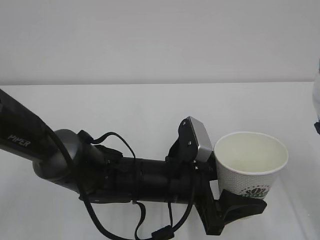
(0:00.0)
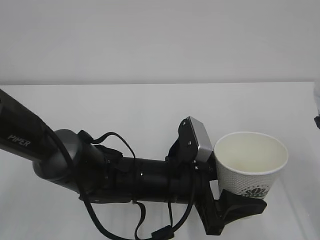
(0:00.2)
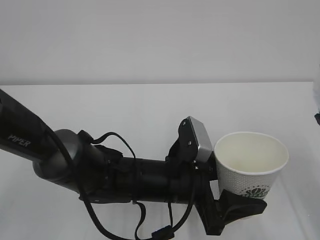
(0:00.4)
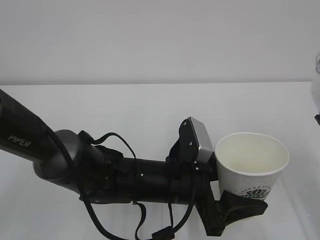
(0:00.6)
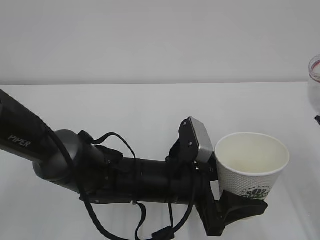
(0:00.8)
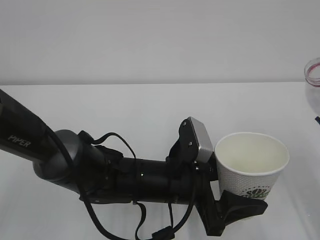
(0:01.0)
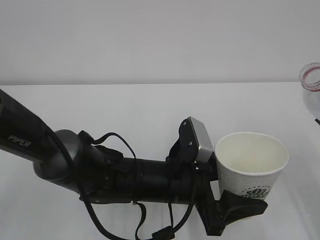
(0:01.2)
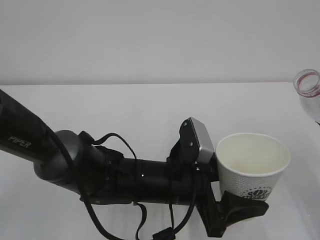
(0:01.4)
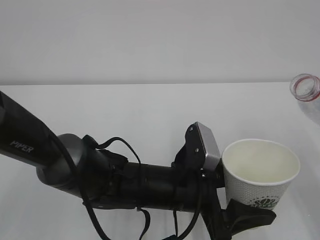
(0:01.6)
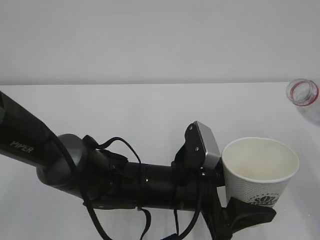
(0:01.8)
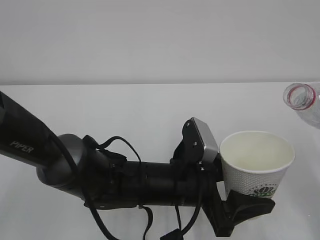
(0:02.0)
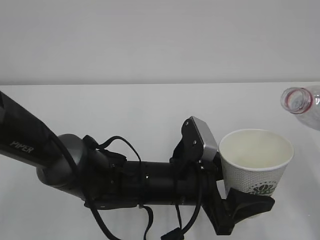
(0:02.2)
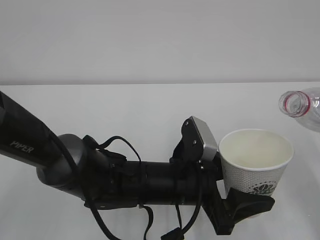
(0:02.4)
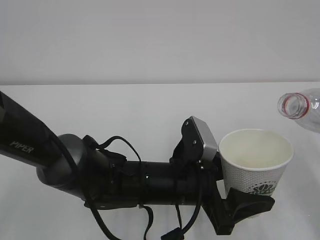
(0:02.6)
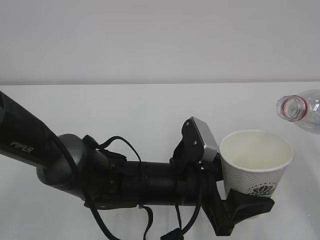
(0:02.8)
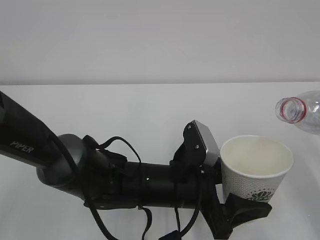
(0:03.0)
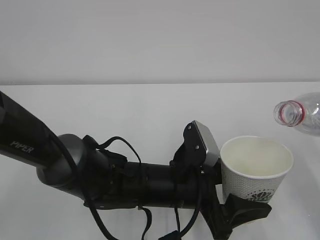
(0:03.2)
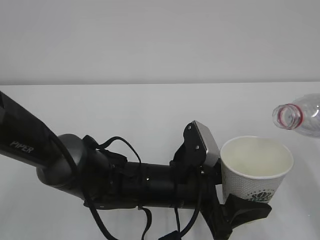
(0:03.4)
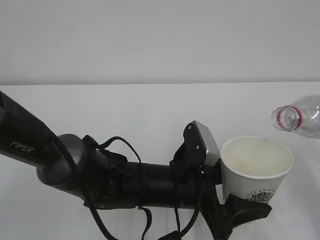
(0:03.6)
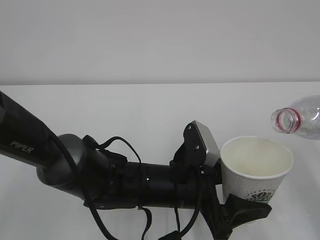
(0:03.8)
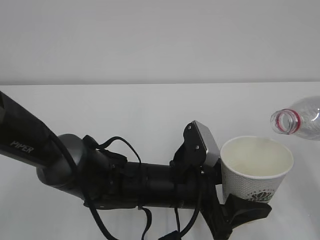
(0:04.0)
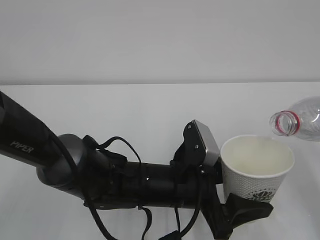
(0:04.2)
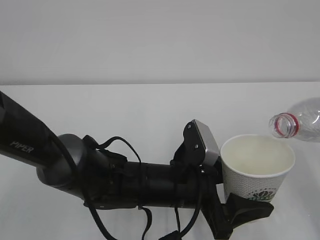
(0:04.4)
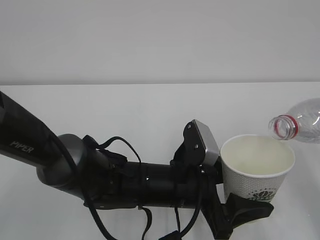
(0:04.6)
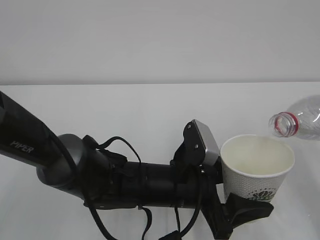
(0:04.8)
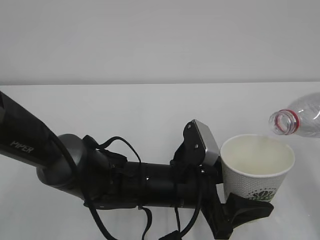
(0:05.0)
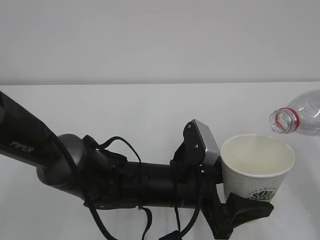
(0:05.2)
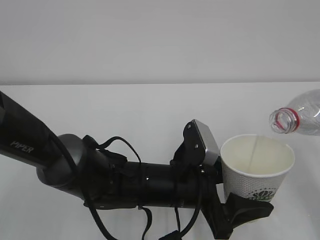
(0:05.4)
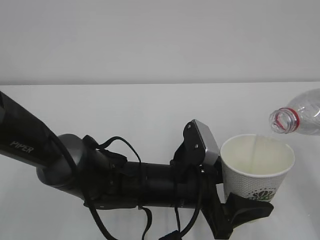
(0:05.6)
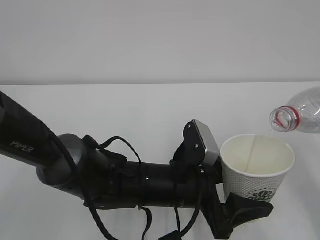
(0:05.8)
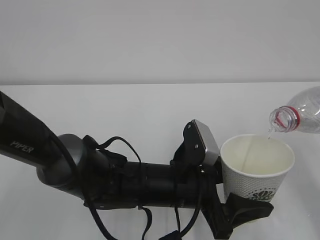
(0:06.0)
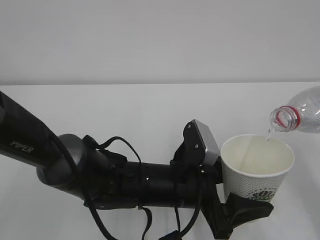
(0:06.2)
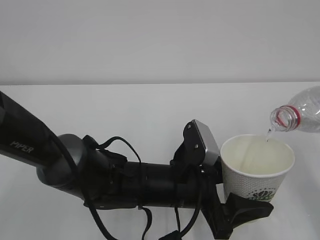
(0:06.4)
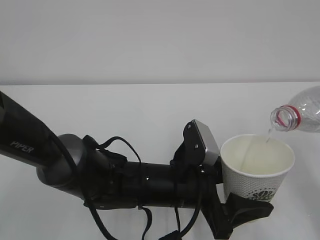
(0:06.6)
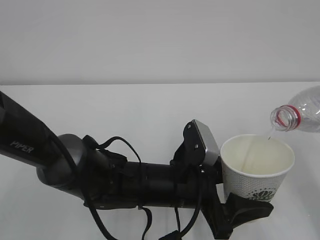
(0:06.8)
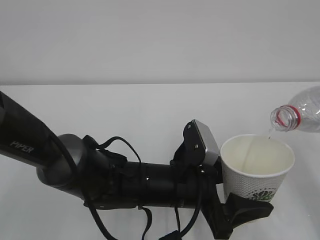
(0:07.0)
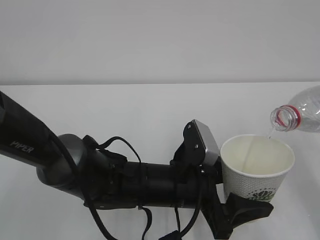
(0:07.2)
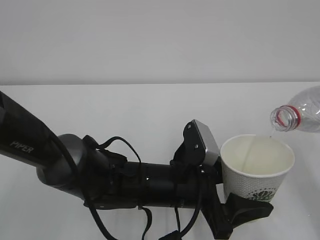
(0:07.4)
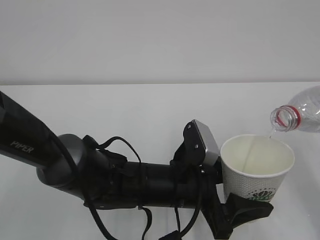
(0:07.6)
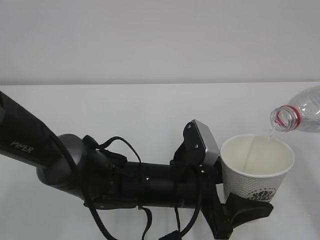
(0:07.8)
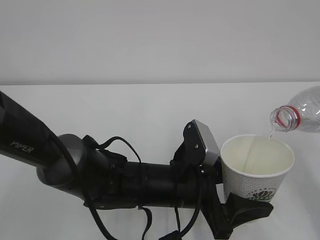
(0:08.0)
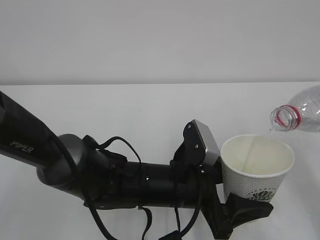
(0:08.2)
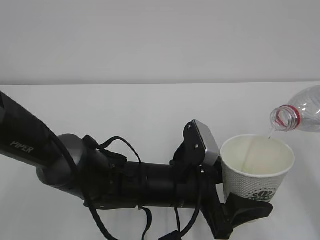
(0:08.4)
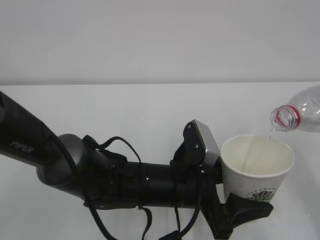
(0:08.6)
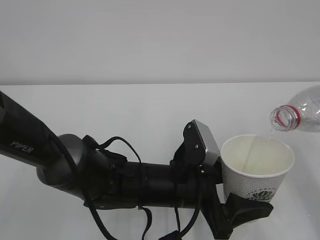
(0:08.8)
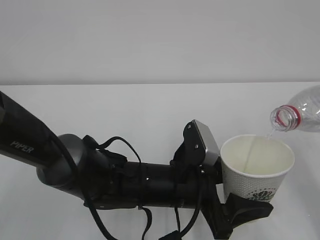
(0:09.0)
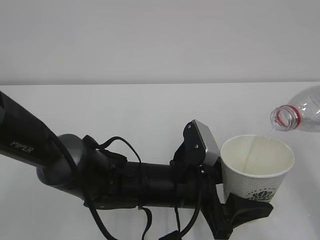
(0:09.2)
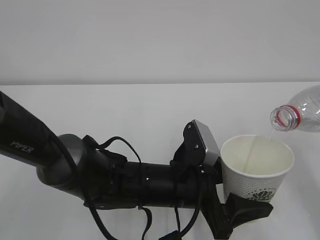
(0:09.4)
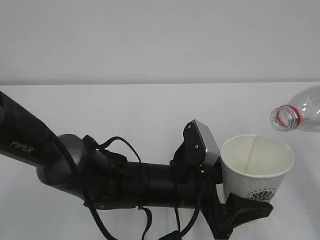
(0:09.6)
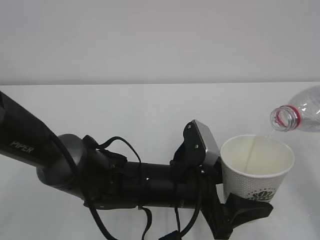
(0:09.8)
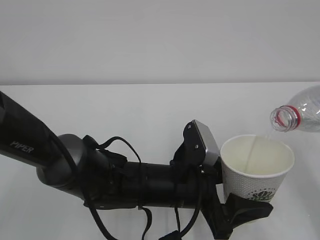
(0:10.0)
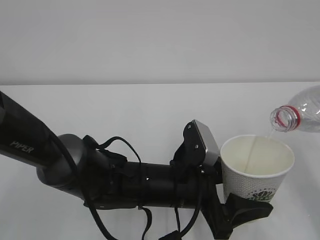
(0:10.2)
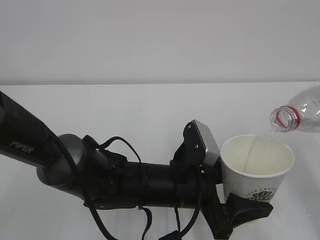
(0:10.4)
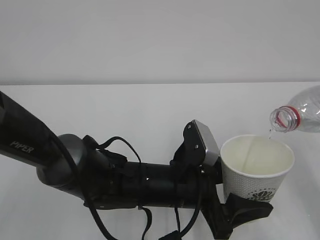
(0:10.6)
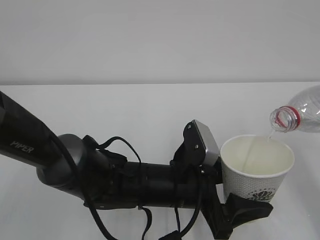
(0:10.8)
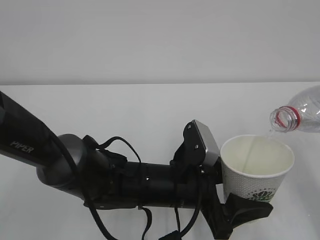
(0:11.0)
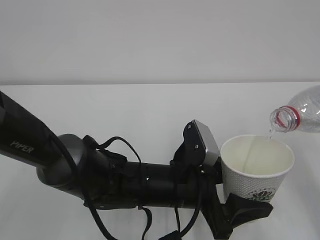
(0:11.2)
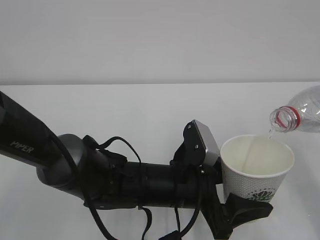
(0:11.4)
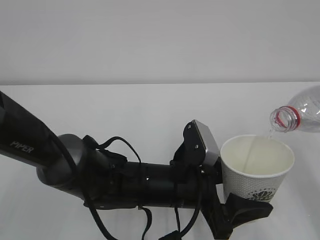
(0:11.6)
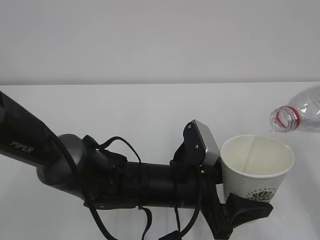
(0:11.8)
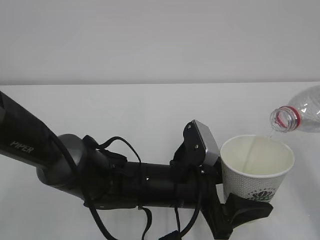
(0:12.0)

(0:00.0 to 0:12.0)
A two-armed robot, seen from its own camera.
0:01.6 - 0:03.0: There are only small adjustments of the grippers.
0:03.0 - 0:06.0: The grippers move only a little.
0:06.0 - 0:12.0: The two grippers keep their place.

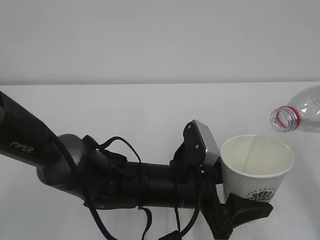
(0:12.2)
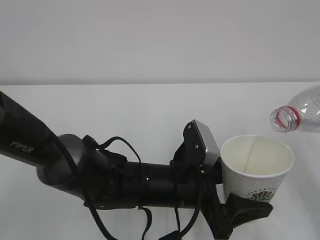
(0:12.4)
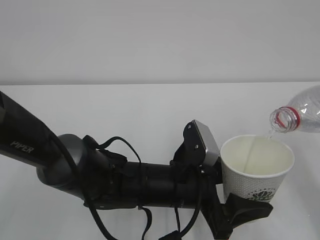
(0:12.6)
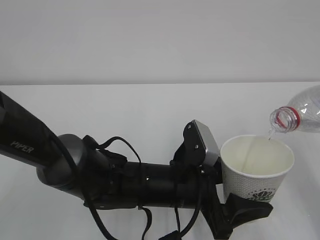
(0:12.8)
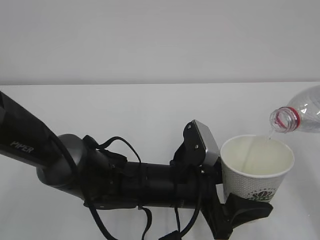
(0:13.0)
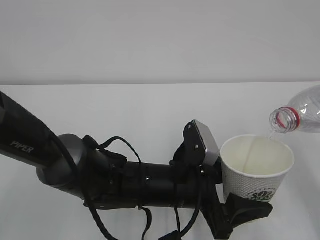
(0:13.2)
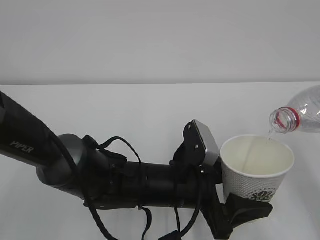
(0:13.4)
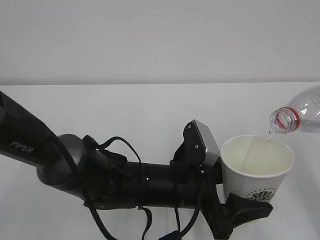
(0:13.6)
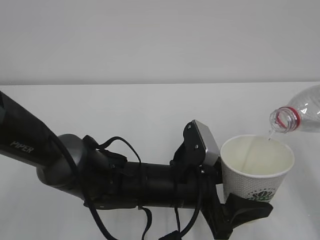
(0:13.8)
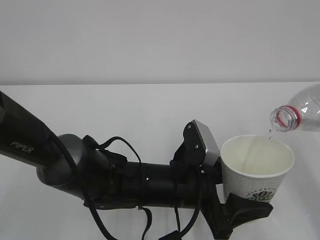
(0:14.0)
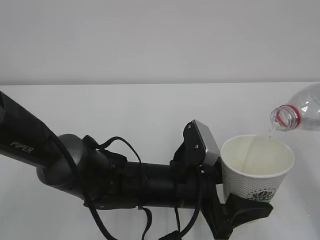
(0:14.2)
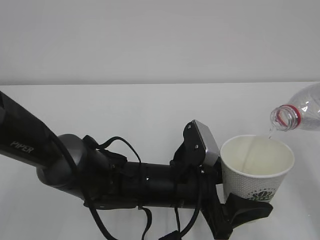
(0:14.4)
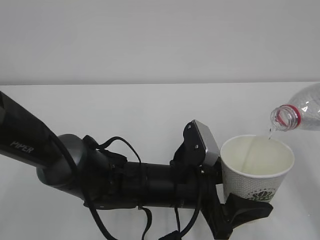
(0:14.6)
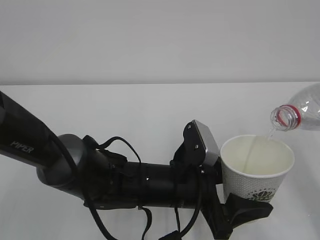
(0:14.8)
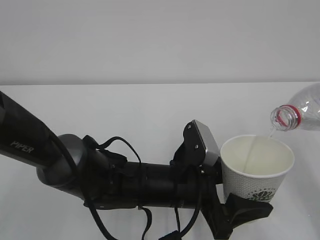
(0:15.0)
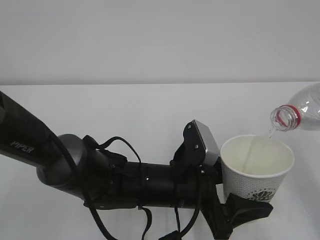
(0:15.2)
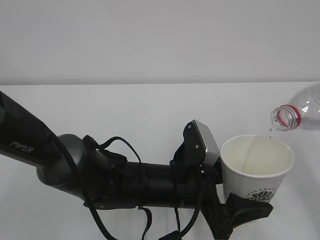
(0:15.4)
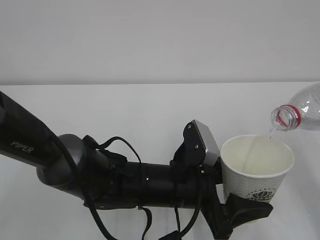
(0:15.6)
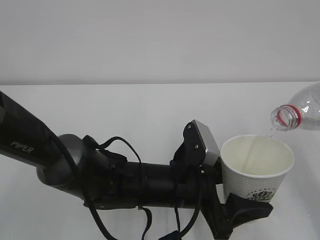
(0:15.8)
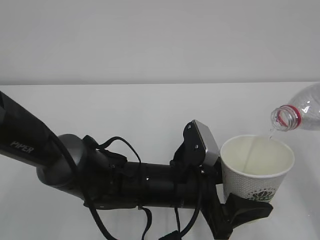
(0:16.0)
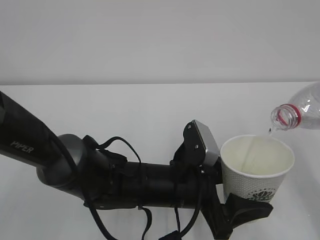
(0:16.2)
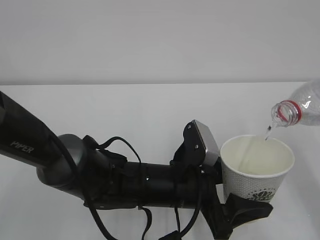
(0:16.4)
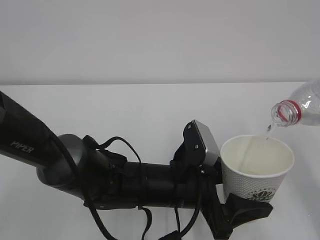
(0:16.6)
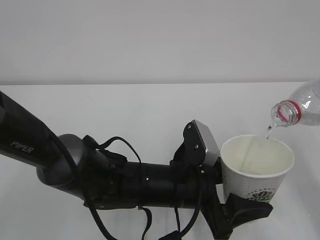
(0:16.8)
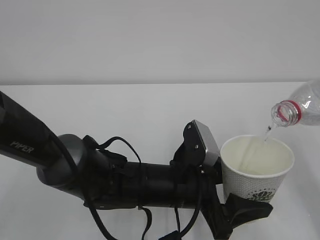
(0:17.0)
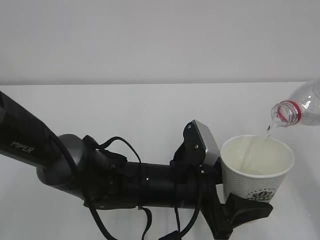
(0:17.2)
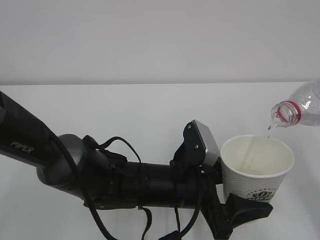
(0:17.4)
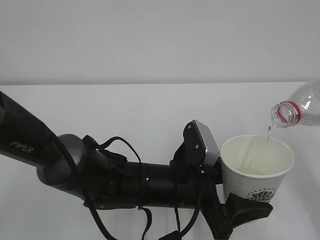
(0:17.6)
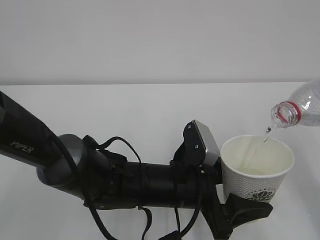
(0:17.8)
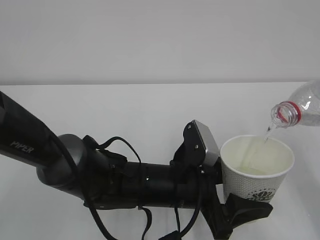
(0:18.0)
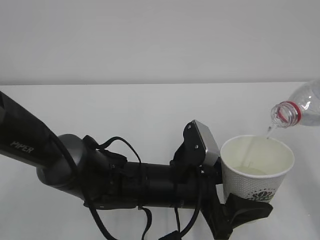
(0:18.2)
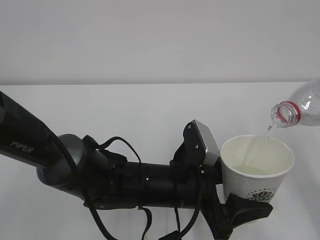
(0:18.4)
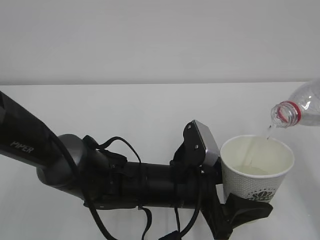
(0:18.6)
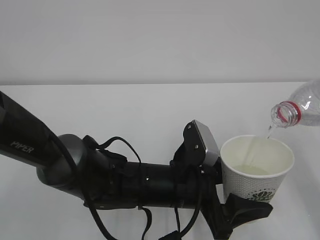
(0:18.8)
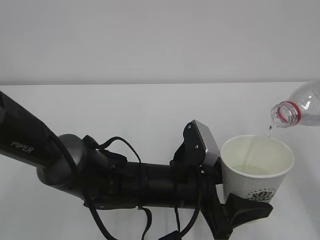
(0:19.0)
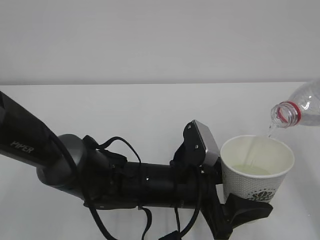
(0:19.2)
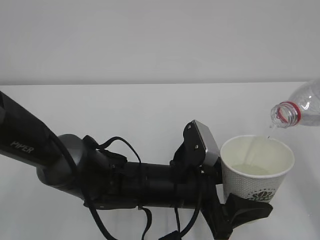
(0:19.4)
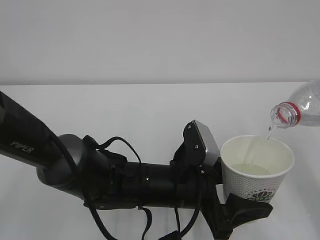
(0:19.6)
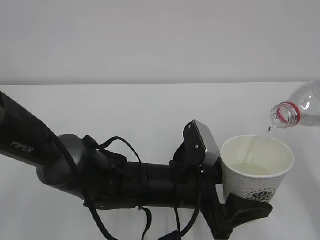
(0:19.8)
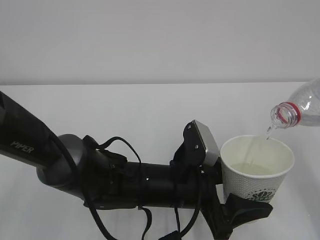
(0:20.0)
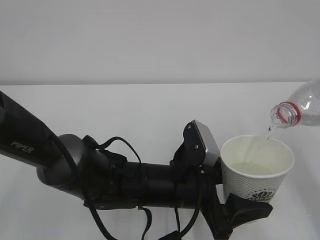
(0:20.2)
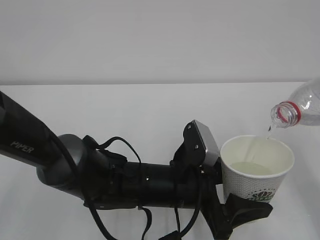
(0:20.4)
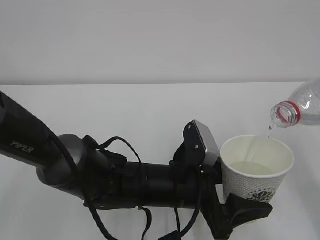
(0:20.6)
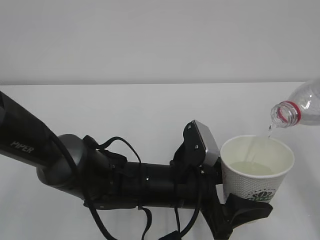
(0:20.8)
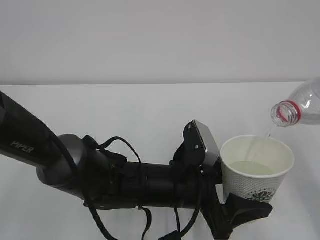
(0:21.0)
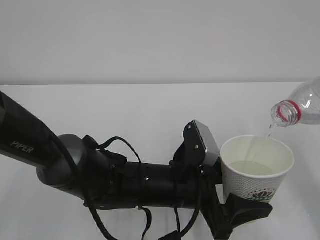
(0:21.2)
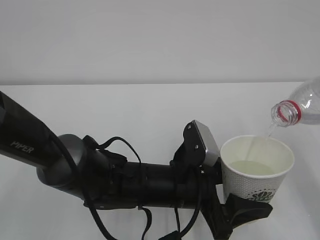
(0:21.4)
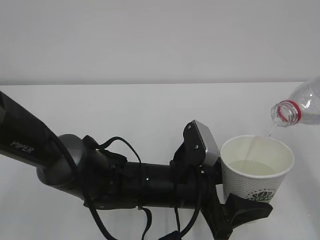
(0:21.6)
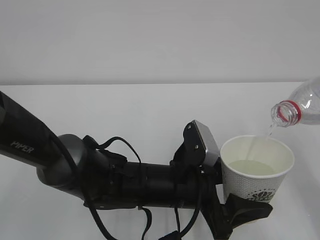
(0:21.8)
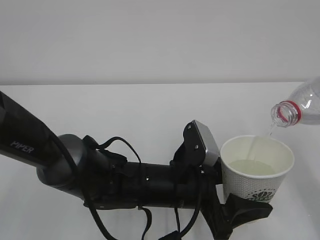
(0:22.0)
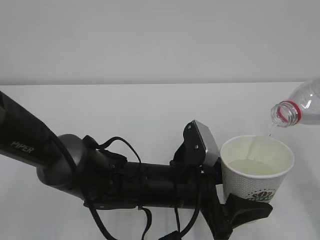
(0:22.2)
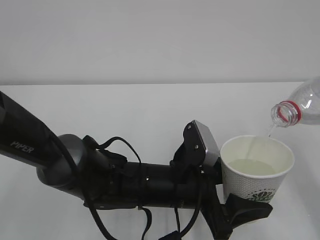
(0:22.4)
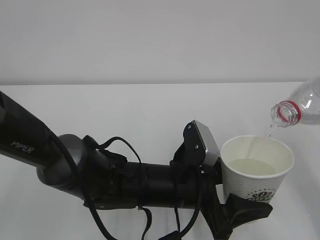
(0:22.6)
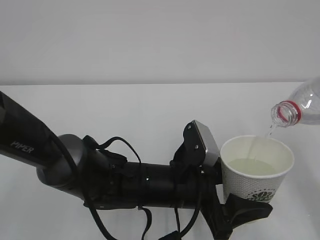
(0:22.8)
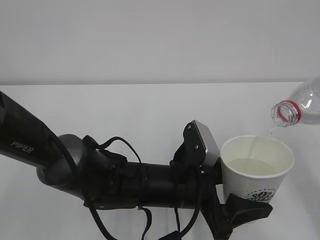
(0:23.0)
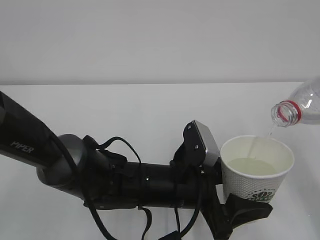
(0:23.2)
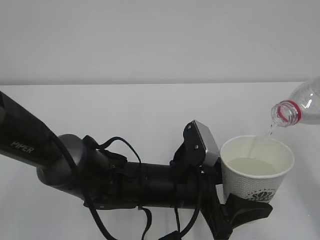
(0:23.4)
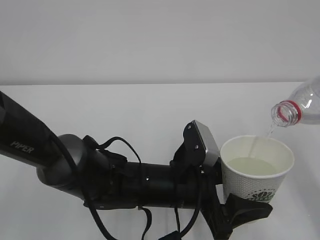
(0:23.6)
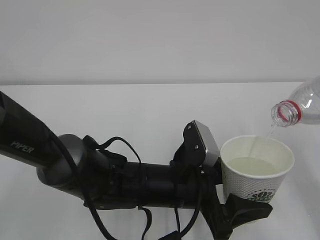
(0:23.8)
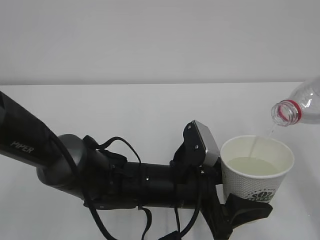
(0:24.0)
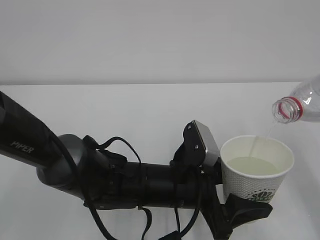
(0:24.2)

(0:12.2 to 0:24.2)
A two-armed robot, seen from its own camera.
0:12.2 - 0:19.8: The two grippers keep their place.
0:19.8 - 0:24.2: The two grippers keep their place.
